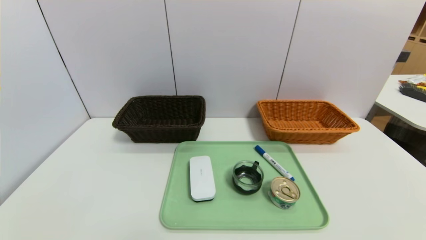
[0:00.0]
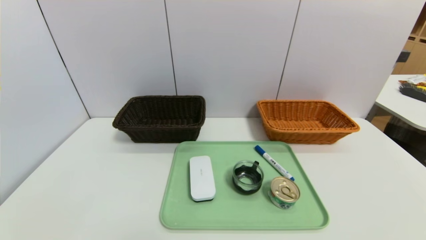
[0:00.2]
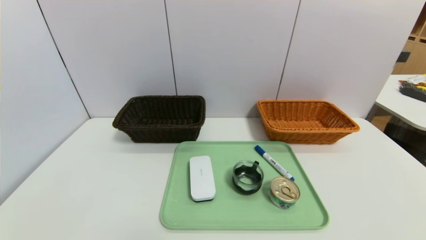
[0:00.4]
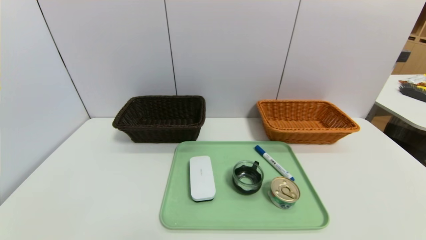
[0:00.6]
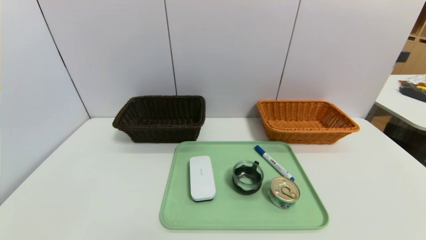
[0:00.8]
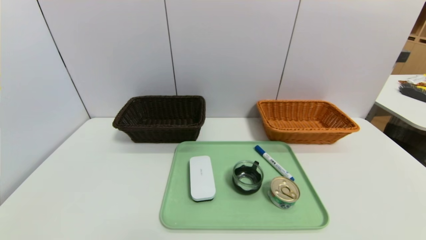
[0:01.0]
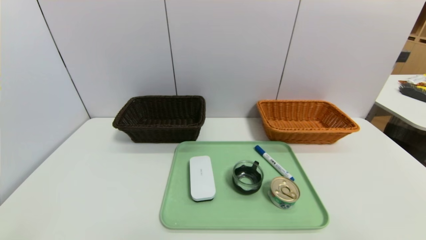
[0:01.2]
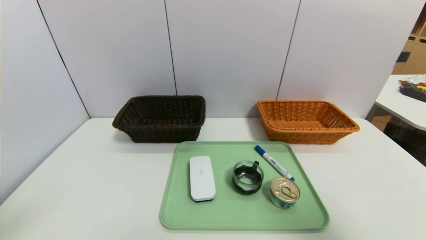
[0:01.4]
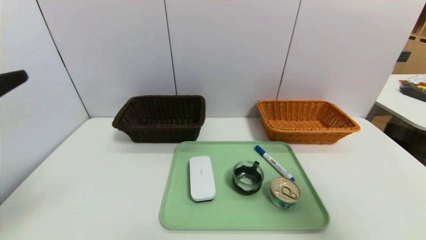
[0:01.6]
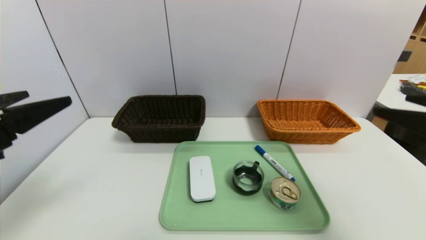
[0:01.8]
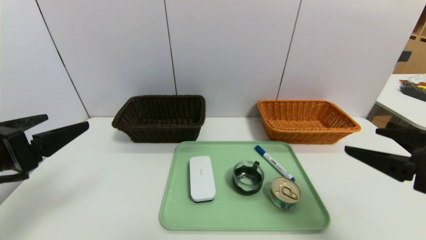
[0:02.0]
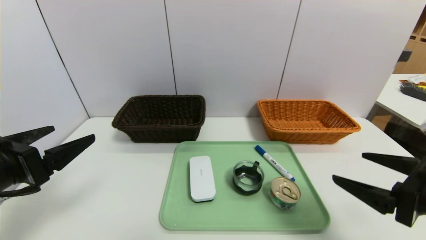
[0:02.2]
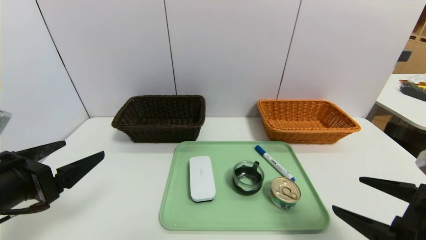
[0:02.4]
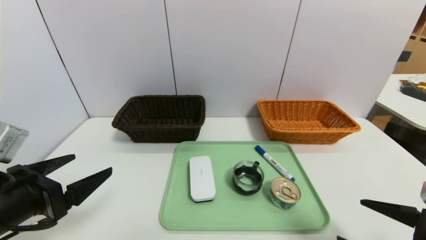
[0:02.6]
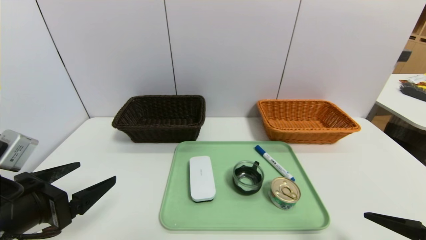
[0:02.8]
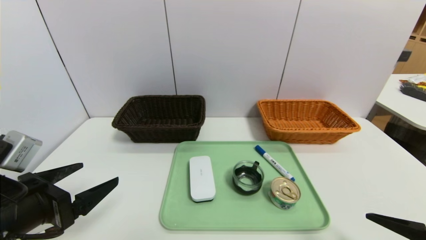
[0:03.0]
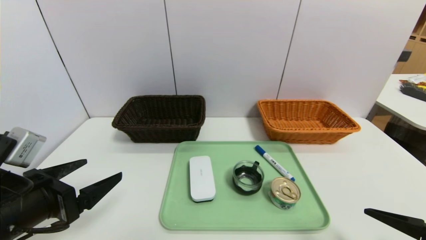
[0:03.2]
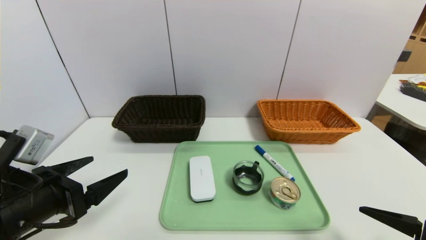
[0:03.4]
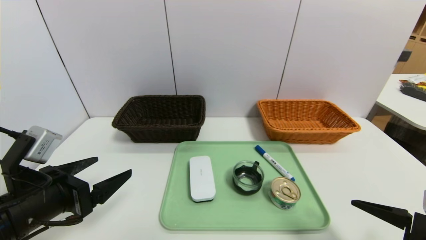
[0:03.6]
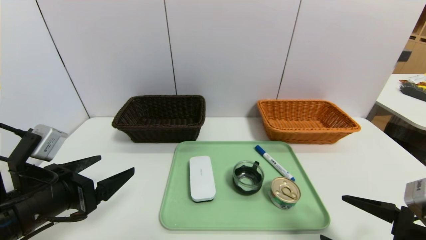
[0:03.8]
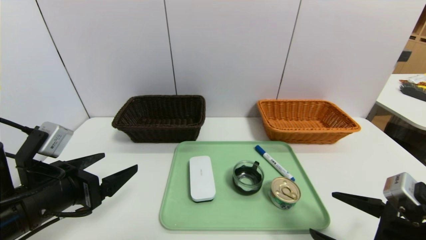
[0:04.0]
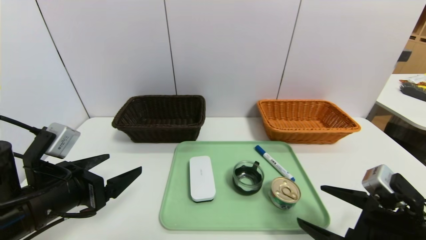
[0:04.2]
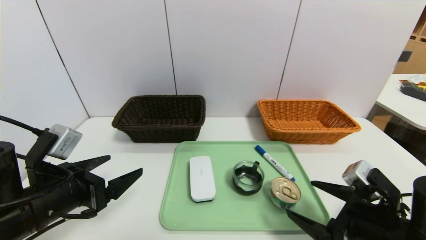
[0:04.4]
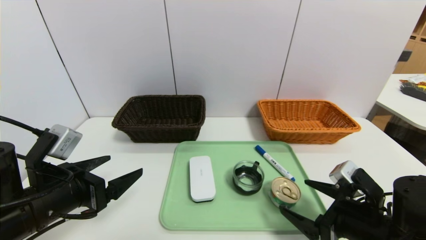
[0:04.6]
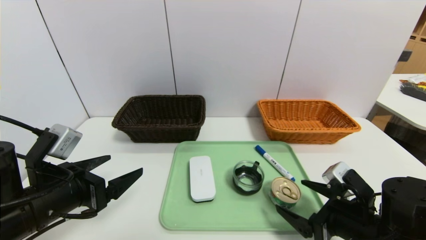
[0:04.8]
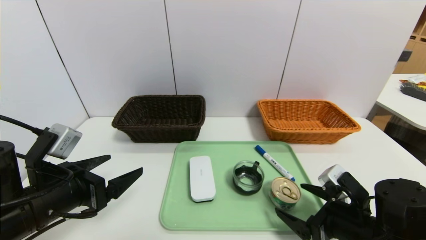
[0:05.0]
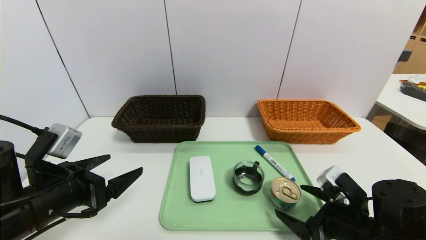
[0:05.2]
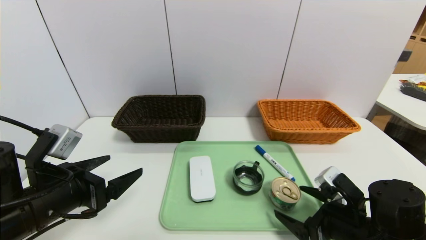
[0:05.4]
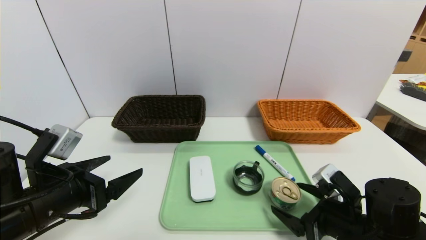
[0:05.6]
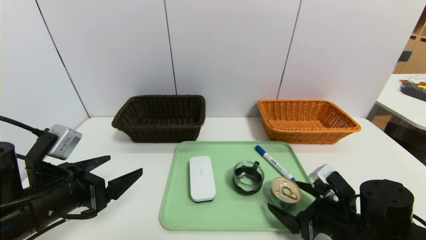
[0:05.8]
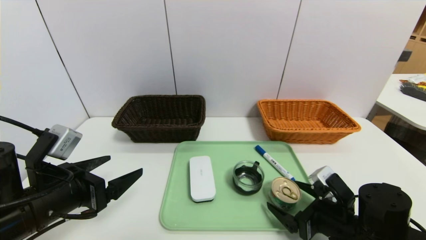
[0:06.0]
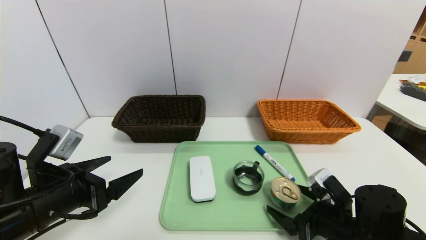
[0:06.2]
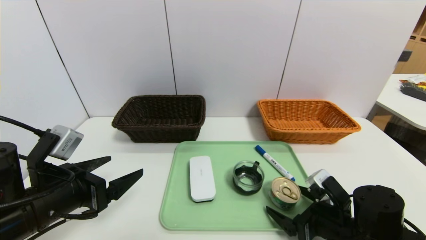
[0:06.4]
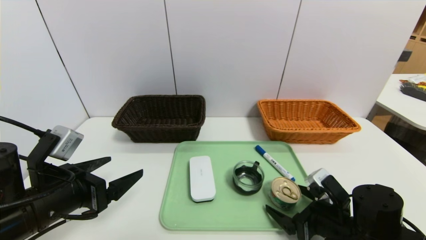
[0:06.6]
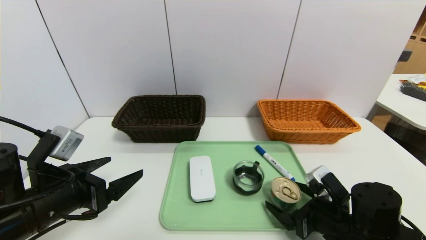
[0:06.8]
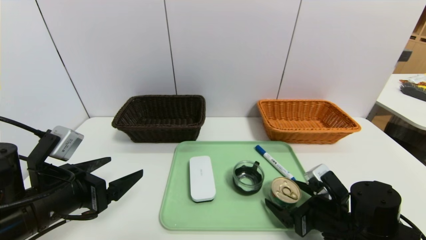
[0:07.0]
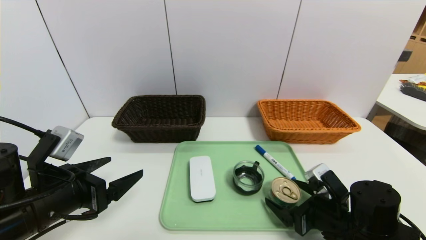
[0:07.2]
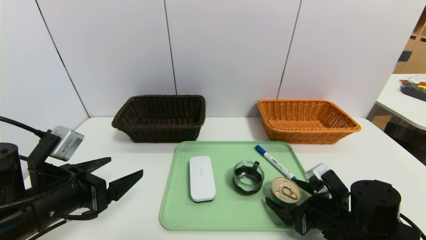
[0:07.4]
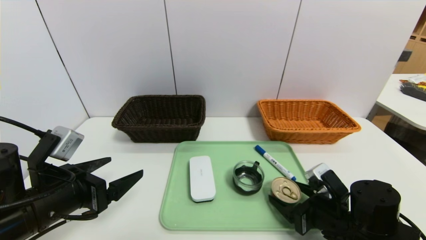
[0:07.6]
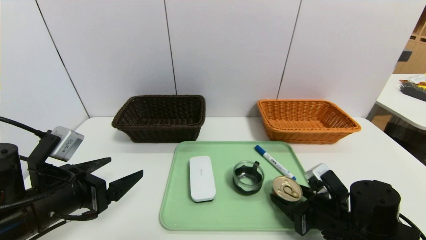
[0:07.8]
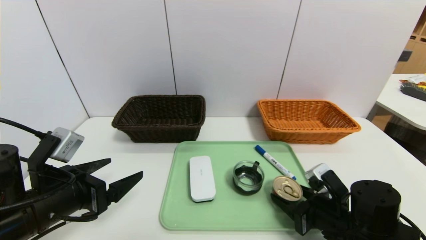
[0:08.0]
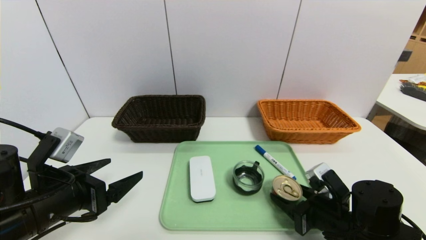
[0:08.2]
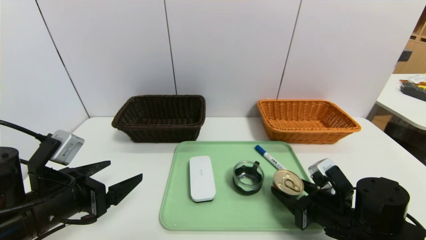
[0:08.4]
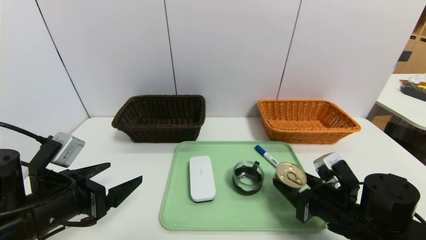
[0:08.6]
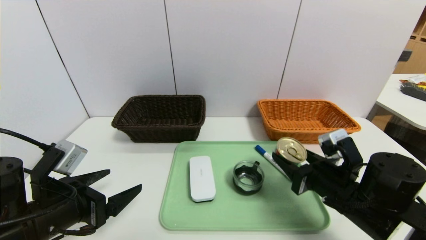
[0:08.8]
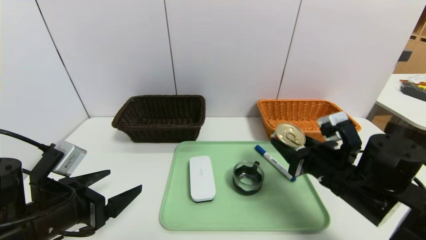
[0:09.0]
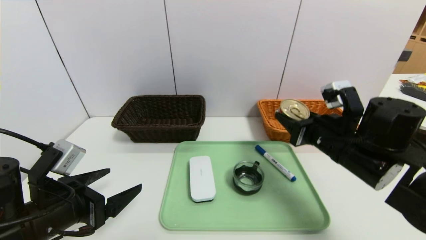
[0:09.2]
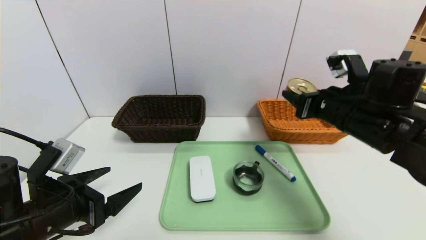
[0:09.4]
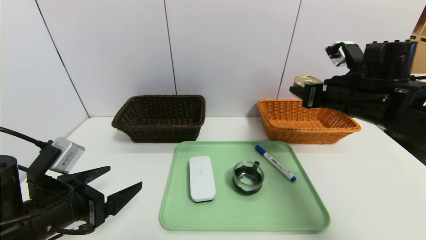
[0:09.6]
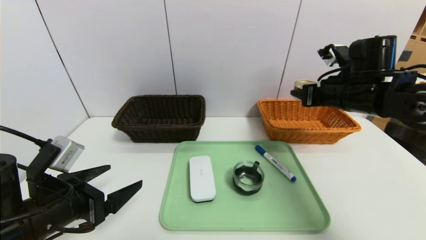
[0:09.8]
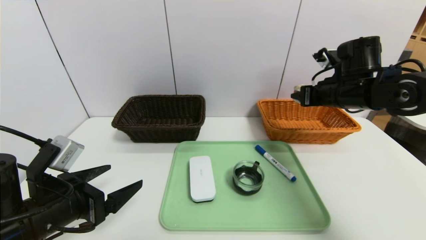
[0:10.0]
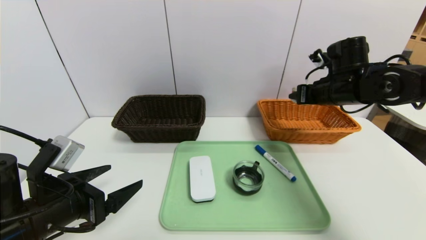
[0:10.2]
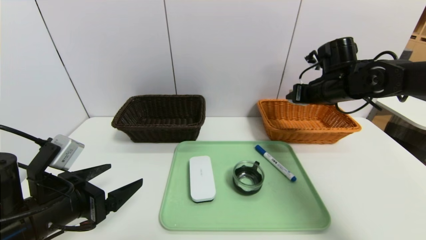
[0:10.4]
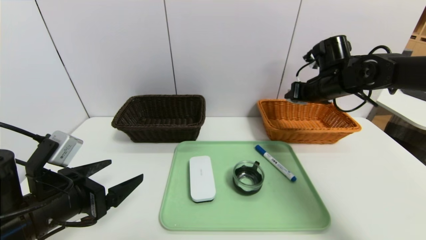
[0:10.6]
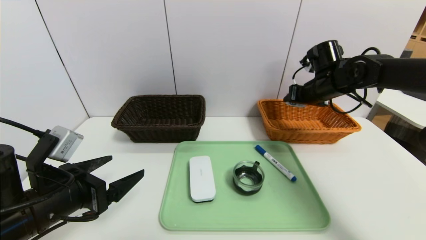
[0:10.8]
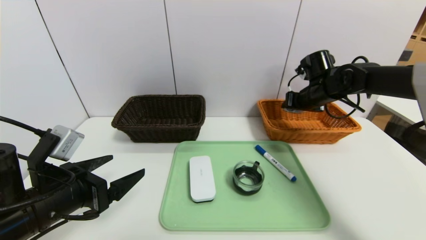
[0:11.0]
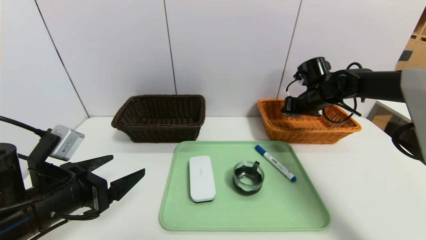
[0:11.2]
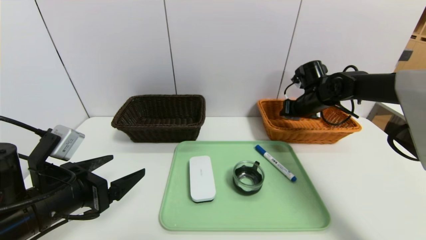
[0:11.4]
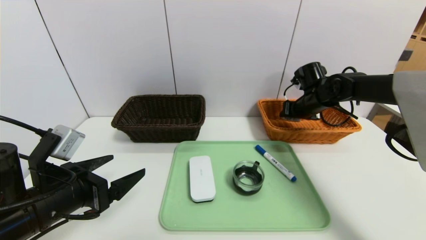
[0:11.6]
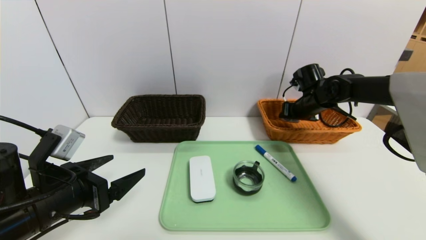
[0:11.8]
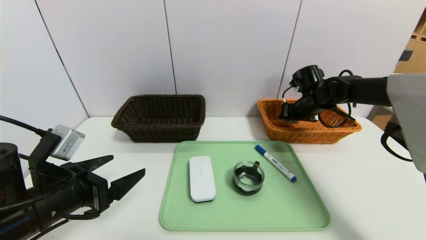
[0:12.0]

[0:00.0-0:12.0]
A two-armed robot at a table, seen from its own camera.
Task of the whole recording: place the food in the right basket with the right gripper, and place the non food items in the left basket with the left gripper.
0:00.0 to 0:01.6: Both grippers move upward and forward, approximately 25 cm.
0:01.6 to 0:03.0: The two grippers go some 15 cm downward.
0:03.0 to 0:04.4: The right gripper moves forward and to the left, roughly 10 cm.
0:04.4 to 0:06.0: The right gripper shifts approximately 5 cm downward.
0:06.0 to 0:07.6: The two grippers keep their place.
0:07.6 to 0:09.0: The right gripper is displaced upward by roughly 10 cm.
0:09.0 to 0:10.4: The right gripper travels forward and upward by roughly 20 cm.
0:10.4 to 0:12.0: The right gripper moves downward and forward, roughly 10 cm.

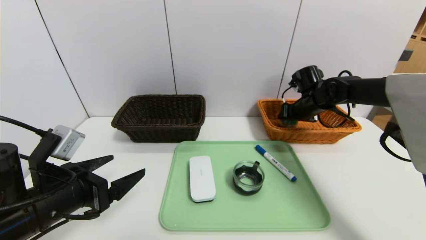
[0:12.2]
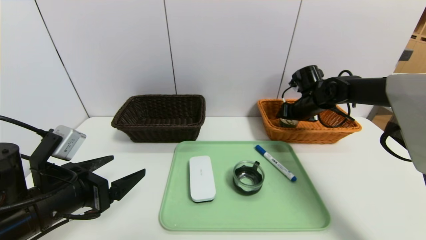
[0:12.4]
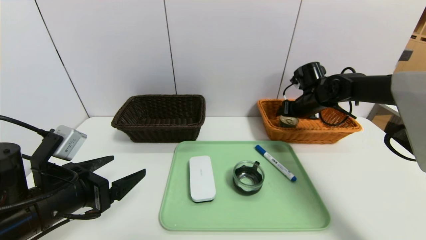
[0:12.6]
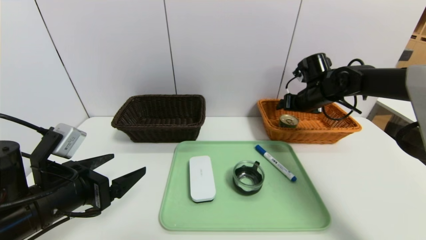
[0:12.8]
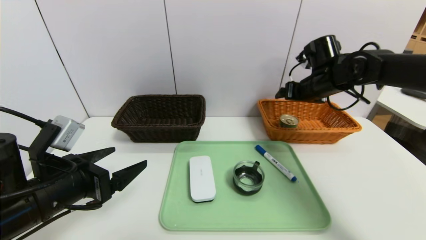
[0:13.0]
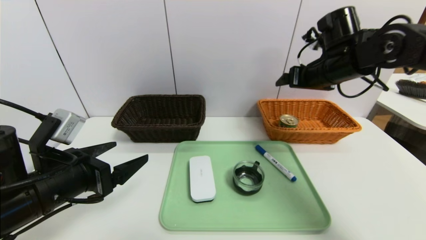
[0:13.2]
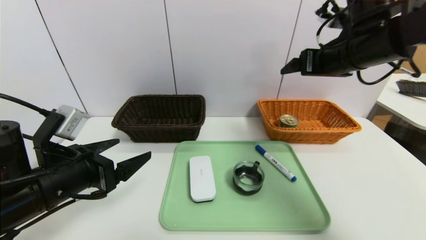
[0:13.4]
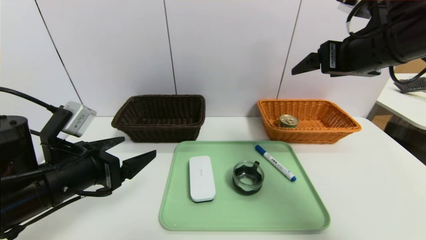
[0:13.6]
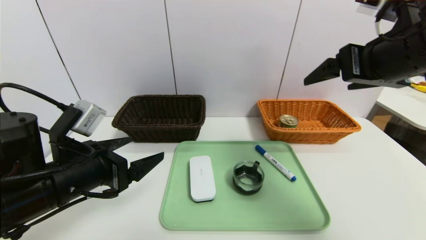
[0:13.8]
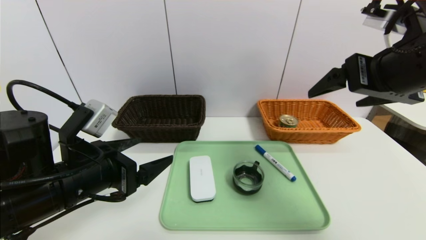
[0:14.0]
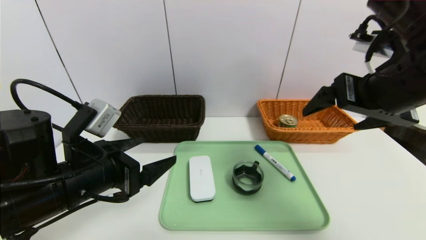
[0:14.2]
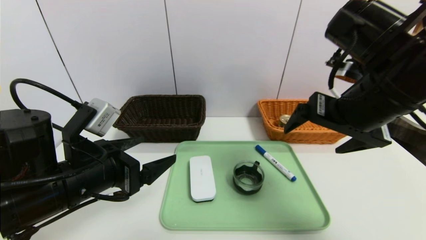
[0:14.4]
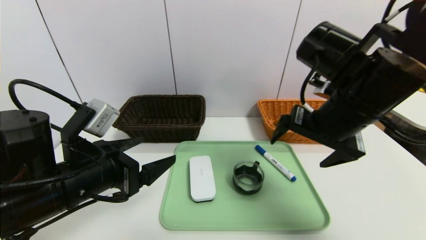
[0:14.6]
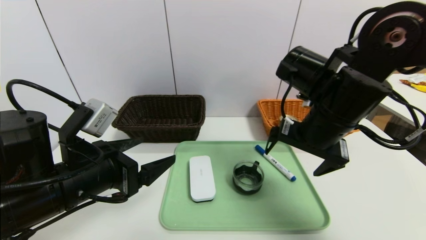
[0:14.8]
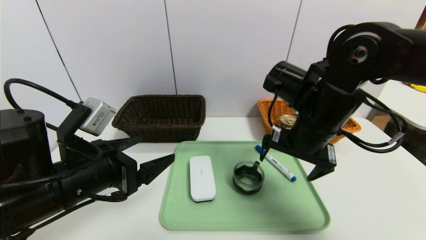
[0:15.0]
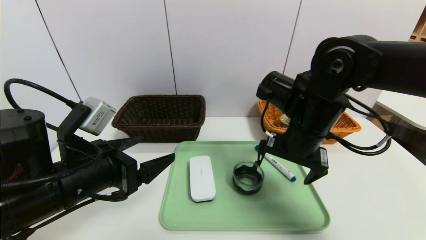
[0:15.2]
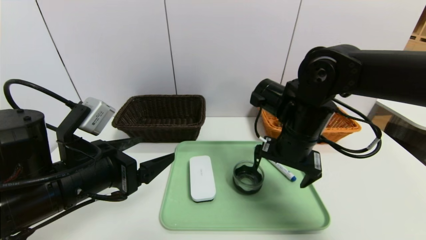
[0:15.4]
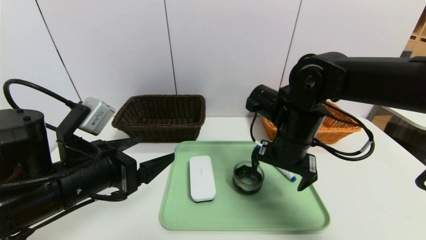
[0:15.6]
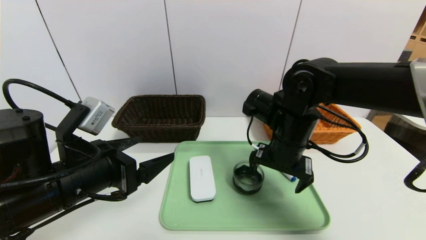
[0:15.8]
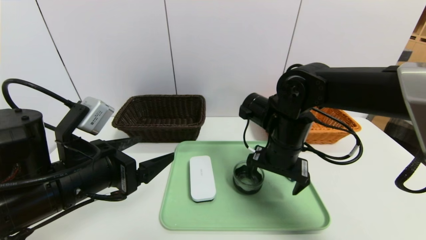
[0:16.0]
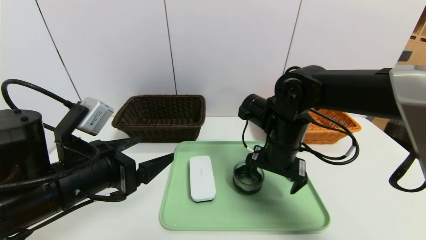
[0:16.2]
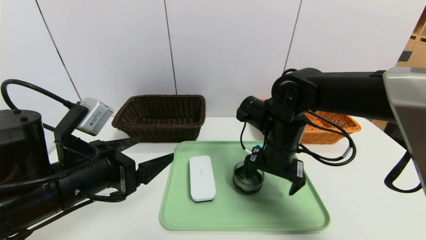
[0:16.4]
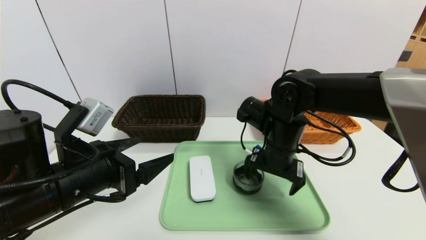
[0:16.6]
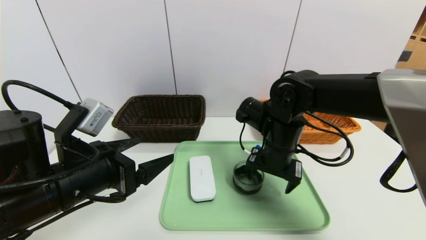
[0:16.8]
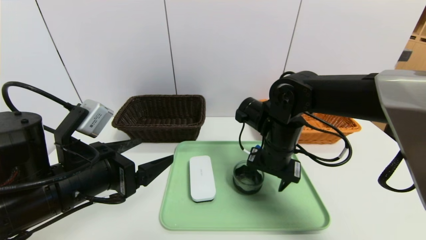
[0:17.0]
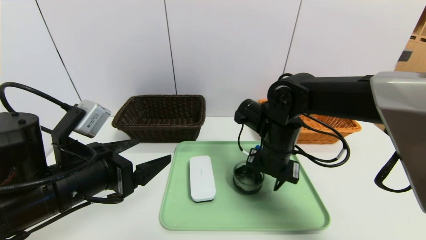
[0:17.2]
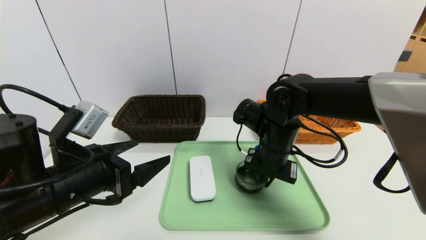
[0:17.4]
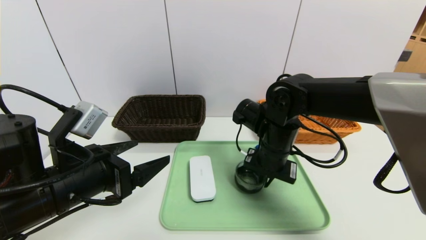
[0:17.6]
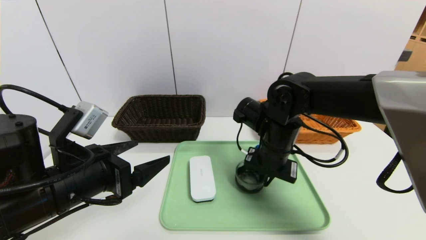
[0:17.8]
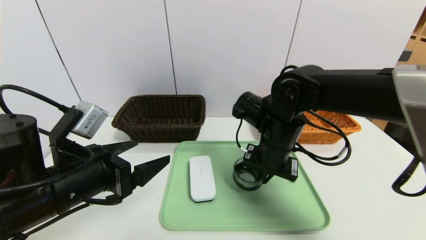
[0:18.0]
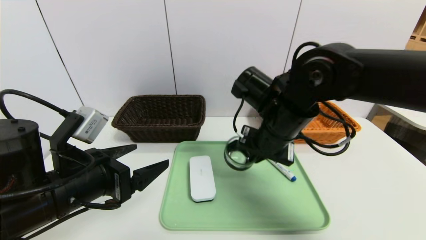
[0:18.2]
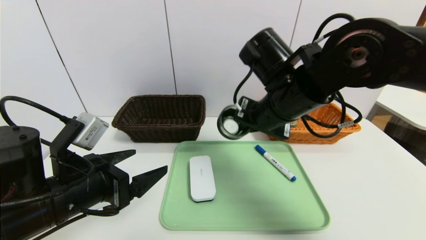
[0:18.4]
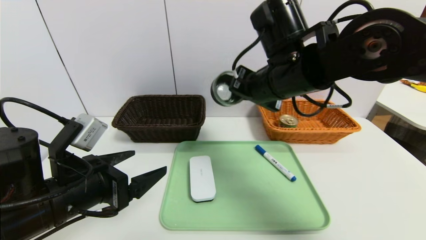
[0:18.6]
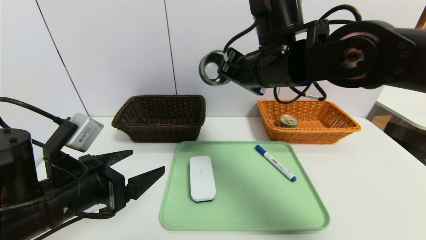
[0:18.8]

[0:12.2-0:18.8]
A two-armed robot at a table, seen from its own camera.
Task of the whole recording: place the food in the right basket with the right gripper, and place the non food items in the left basket with the left gripper.
0:12.2 to 0:13.8: The right gripper heads backward and upward, covering roughly 30 cm, while the left gripper ends up some 5 cm from where it was.
0:13.8 to 0:15.4: The right gripper heads downward, to the left and forward, covering some 20 cm.
0:15.4 to 0:17.2: The right gripper shifts by about 5 cm, and closes its fingers.
0:17.2 to 0:18.8: The right gripper travels upward by about 15 cm.
